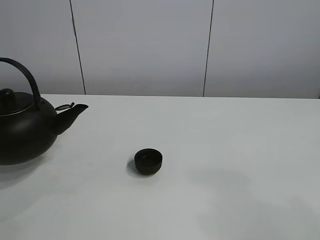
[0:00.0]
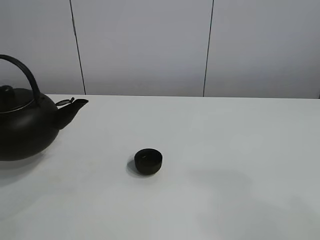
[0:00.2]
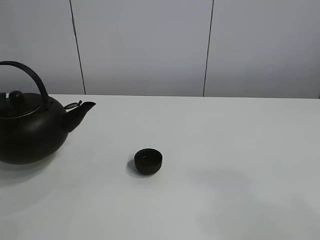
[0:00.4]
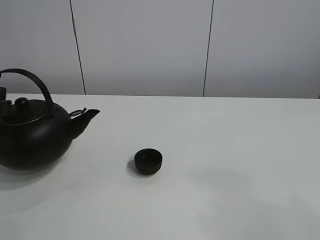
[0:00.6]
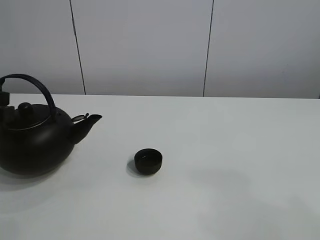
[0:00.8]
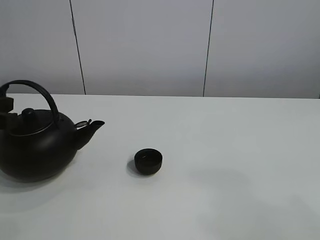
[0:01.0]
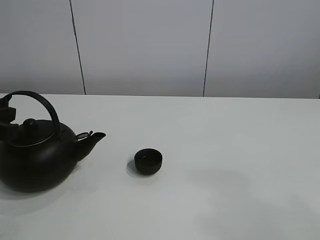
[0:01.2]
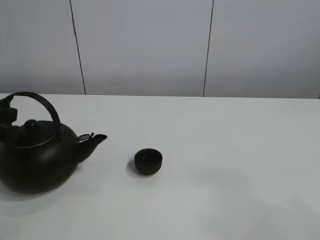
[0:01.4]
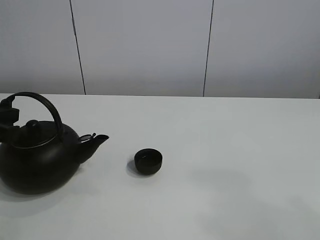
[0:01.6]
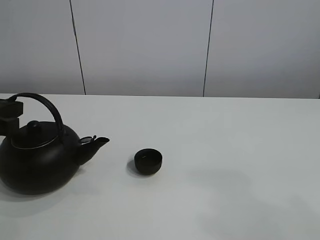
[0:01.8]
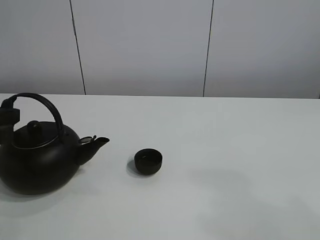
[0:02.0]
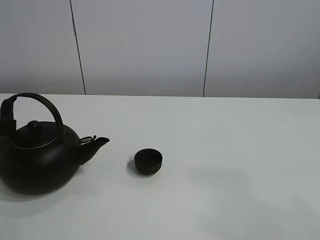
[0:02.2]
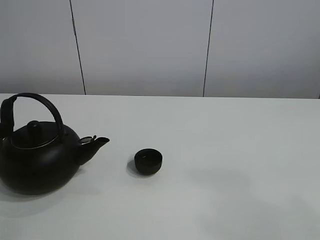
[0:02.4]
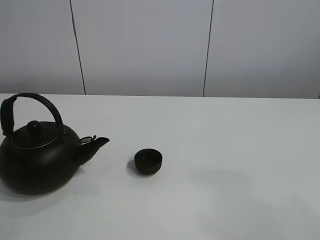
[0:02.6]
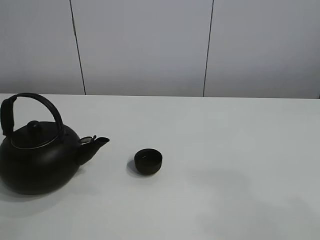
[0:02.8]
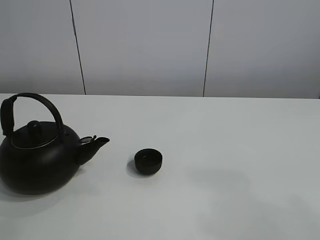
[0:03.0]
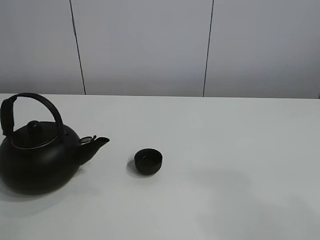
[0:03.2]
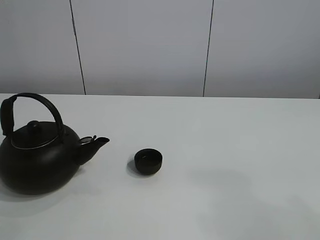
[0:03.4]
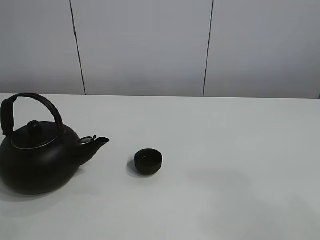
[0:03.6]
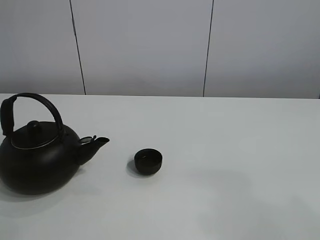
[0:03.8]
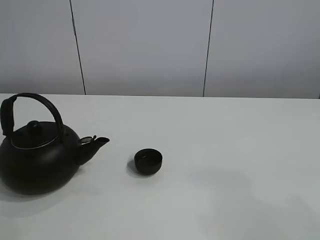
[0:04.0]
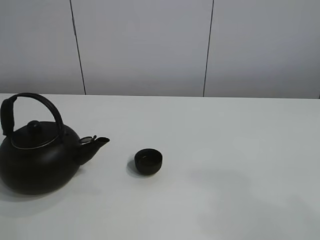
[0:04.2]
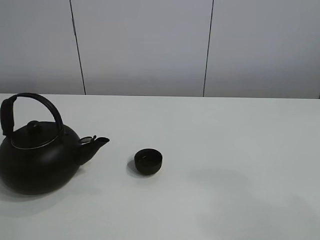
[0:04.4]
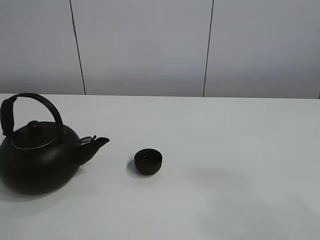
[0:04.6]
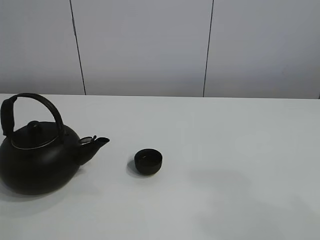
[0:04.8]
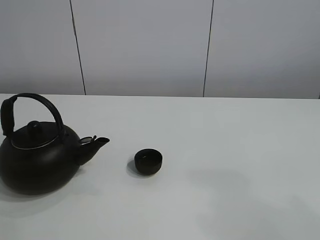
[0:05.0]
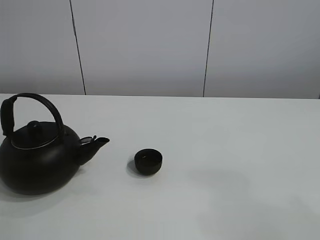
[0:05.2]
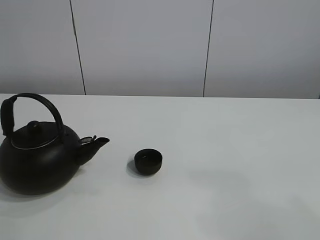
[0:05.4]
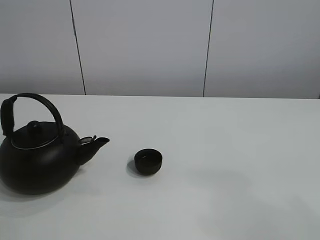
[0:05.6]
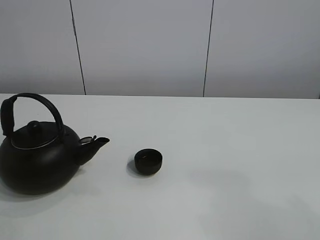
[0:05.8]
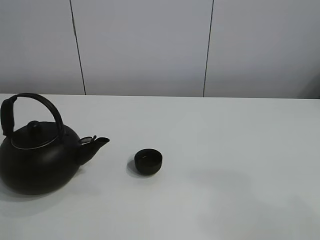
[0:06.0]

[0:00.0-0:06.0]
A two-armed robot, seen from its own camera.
Task of the whole recording: pour tea into the teacup.
0:00.0 to 0:01.6: The left gripper heads downward, covering approximately 5 cm.
0:01.6 to 0:03.0: There are only small adjustments of the grippers.

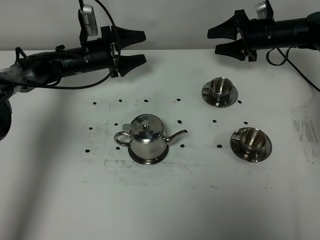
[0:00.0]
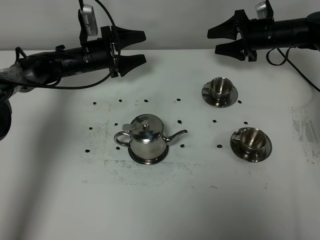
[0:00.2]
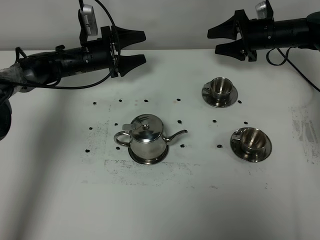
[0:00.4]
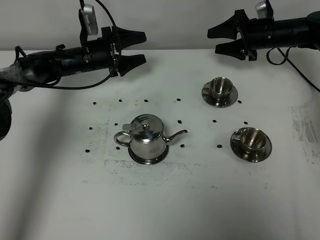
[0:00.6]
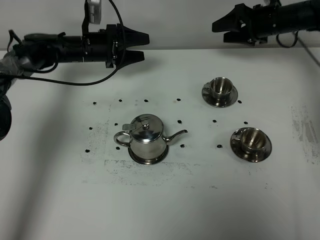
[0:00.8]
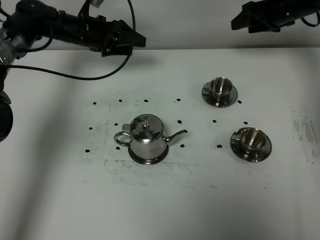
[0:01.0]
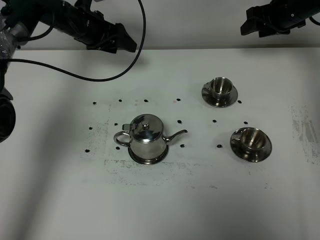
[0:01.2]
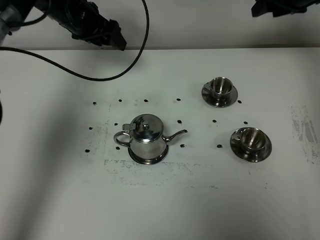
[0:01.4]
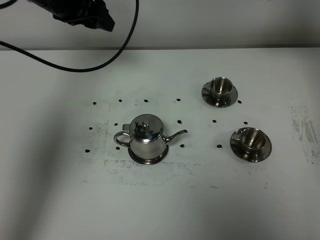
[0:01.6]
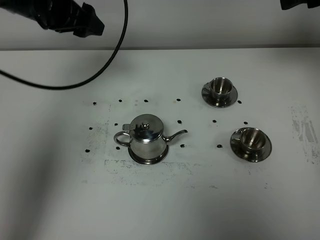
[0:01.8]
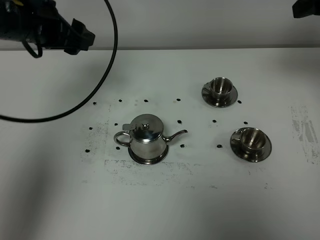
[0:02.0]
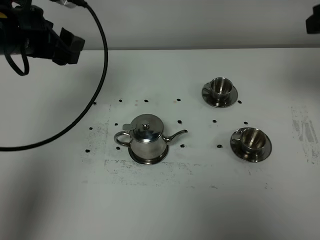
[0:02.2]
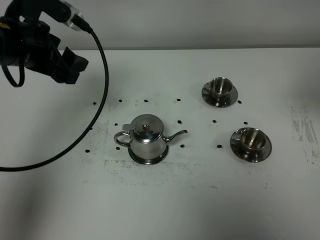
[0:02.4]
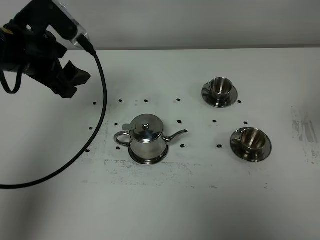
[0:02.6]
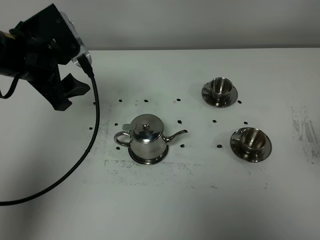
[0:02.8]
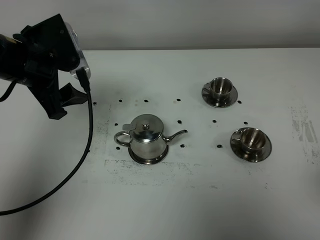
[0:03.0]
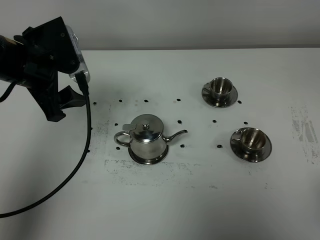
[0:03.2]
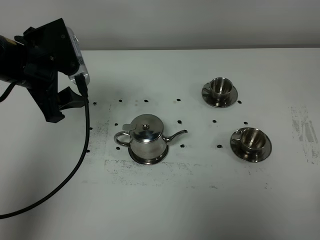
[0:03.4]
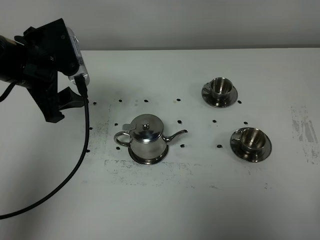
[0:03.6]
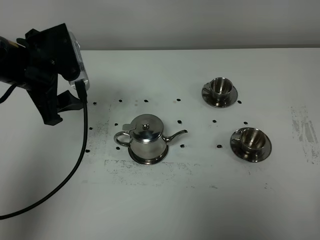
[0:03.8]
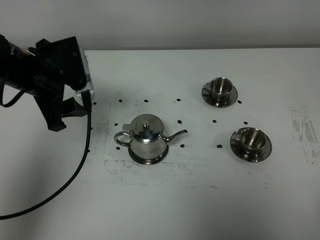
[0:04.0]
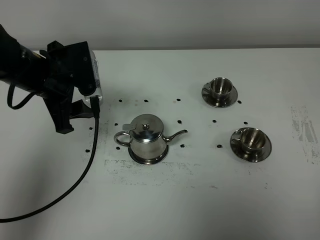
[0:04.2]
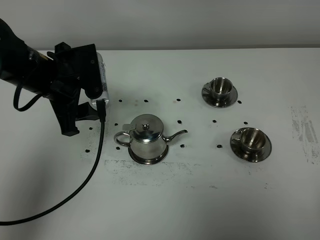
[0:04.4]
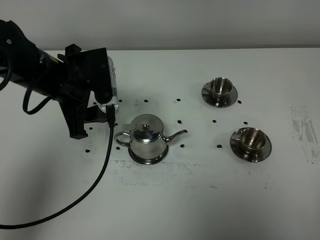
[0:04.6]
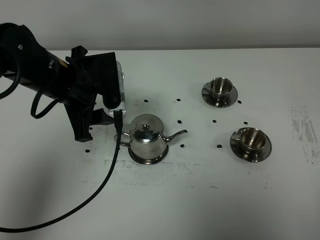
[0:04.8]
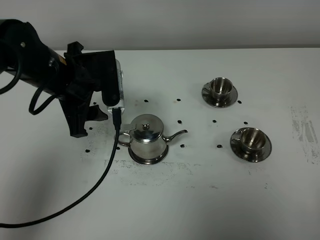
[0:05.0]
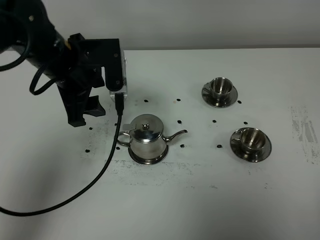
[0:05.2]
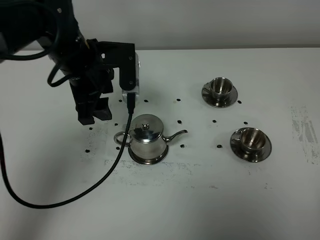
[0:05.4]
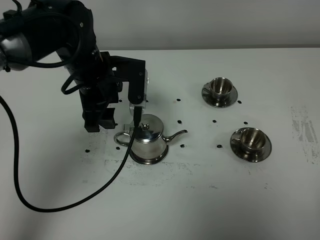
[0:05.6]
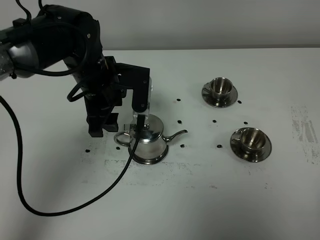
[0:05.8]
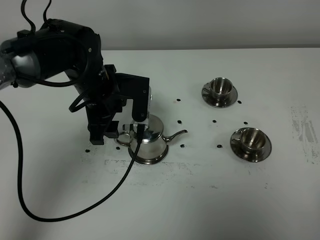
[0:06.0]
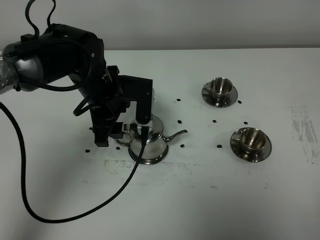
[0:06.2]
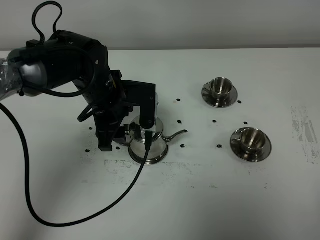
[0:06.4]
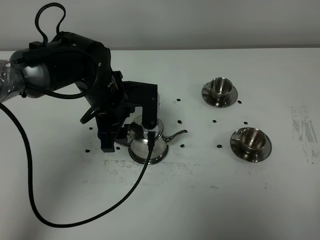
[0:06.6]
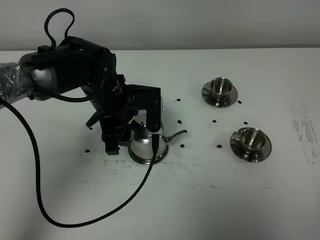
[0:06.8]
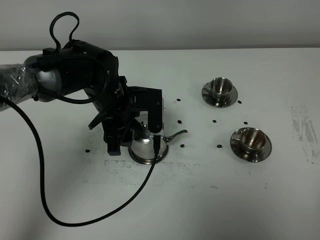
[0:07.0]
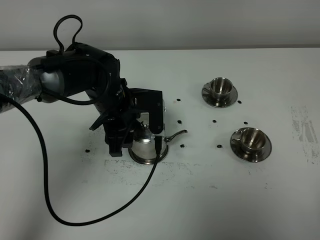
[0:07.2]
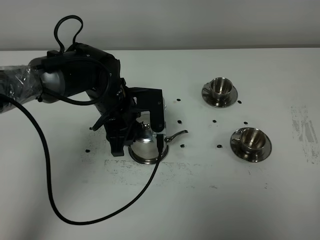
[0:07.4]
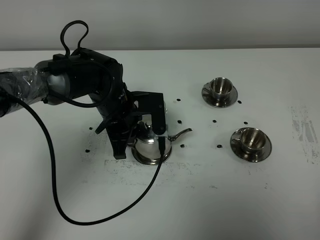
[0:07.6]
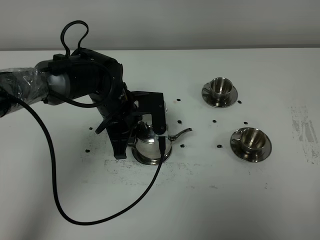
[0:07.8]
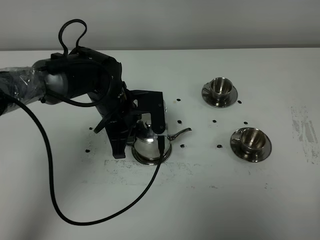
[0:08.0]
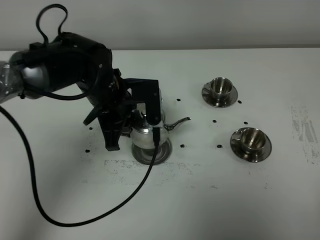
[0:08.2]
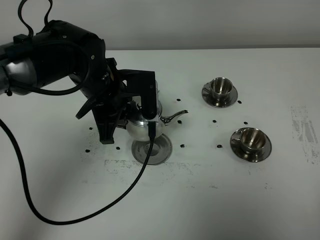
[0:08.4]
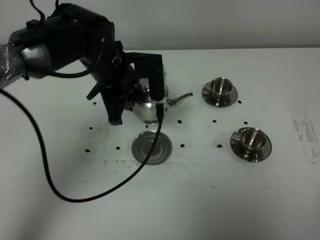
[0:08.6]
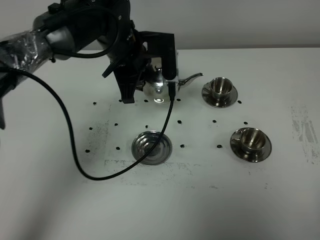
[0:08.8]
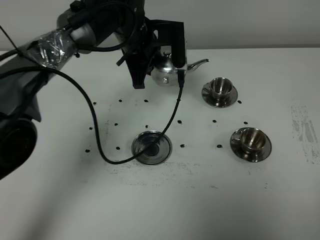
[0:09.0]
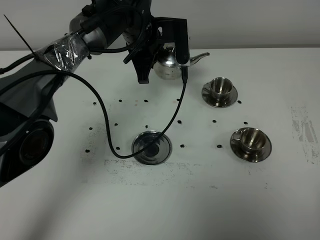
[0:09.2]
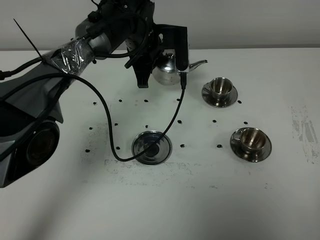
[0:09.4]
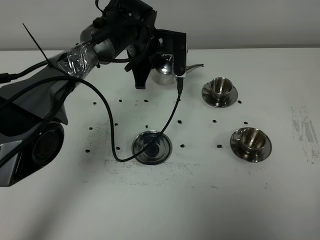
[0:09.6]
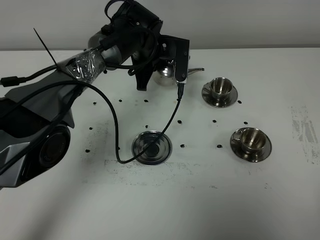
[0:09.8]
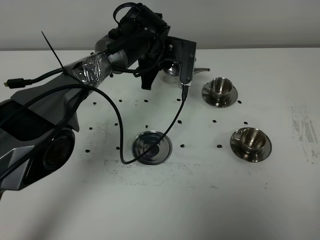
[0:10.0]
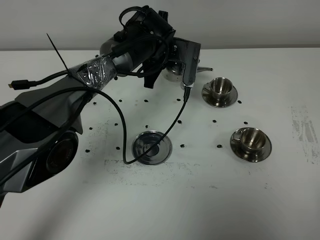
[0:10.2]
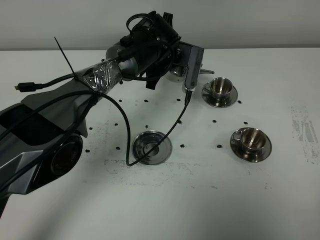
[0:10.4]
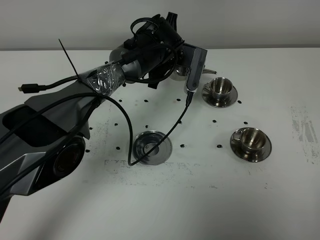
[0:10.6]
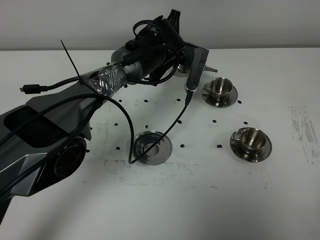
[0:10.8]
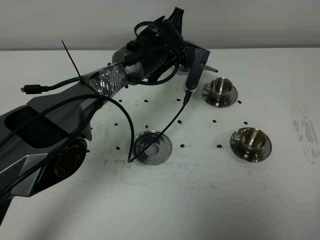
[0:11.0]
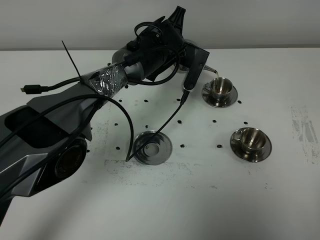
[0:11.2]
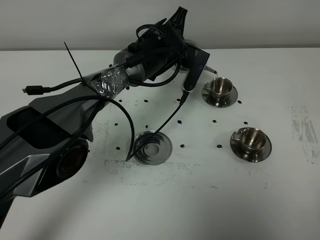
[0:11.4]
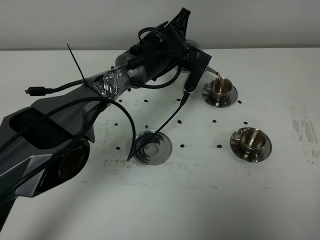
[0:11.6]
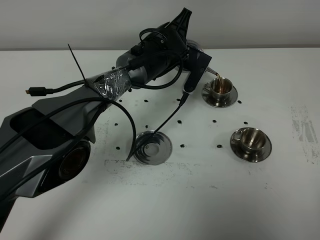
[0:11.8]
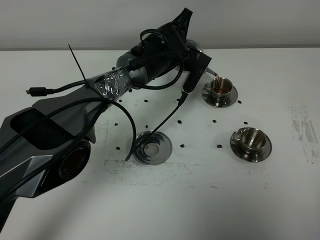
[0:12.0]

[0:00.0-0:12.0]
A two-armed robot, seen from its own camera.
Task of the whole recording: grasp the stainless steel teapot and pour the tea into the two stainless steel teacups one by one, put the stainless steel teapot back in its original place.
Step, 0:00.0 to 0:08.0: Pick up the teapot with the left gripper.
0:00.0 to 0:01.6: The right gripper shifts some 25 cm upward and backward, and closes up, while the left gripper is displaced upward by roughly 20 cm.
0:01.6 to 0:03.0: The left gripper travels backward by some 15 cm, while the right gripper goes approximately 40 cm backward.
0:04.4 to 0:06.0: The left gripper is displaced to the right and downward by about 10 cm.
0:06.0 to 0:07.6: The left gripper shifts by about 5 cm, and closes up.
0:07.6 to 0:09.0: The left gripper goes roughly 15 cm forward and upward.
0:09.0 to 0:10.4: The left gripper shifts roughly 5 cm downward.

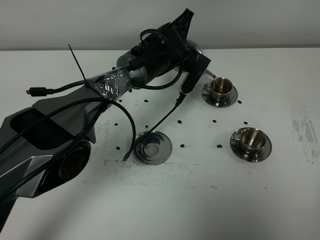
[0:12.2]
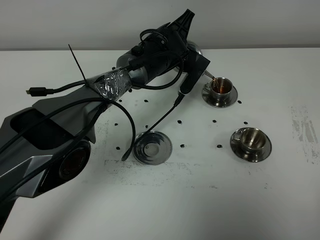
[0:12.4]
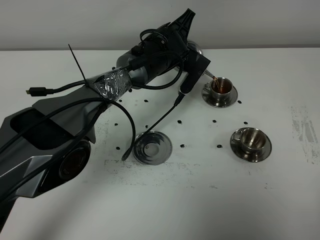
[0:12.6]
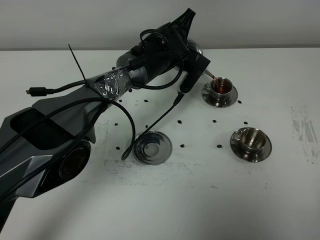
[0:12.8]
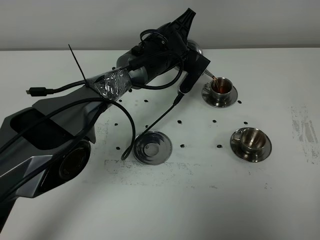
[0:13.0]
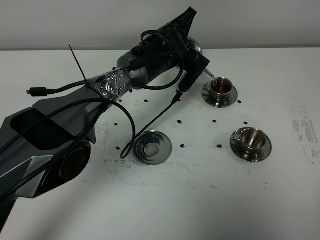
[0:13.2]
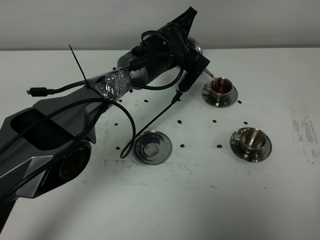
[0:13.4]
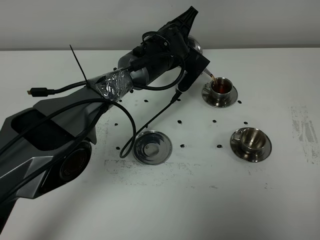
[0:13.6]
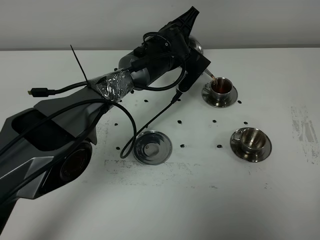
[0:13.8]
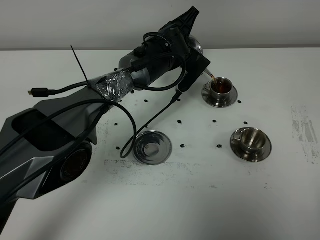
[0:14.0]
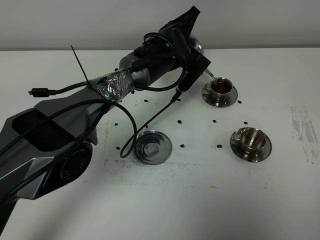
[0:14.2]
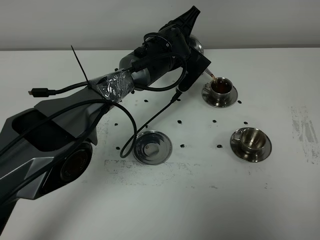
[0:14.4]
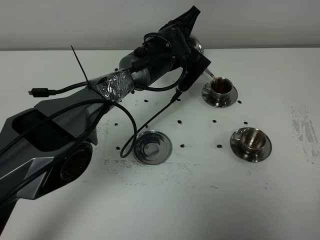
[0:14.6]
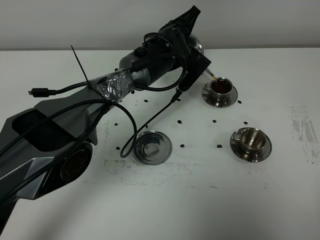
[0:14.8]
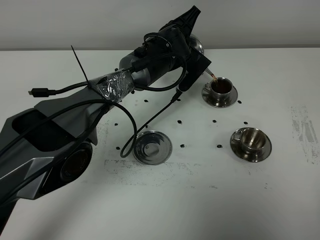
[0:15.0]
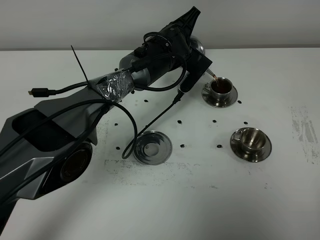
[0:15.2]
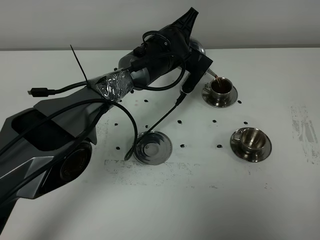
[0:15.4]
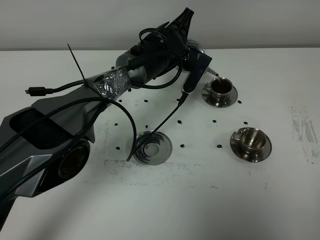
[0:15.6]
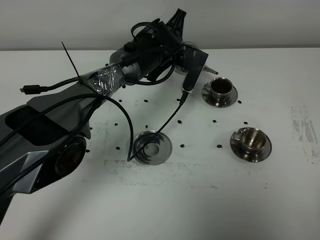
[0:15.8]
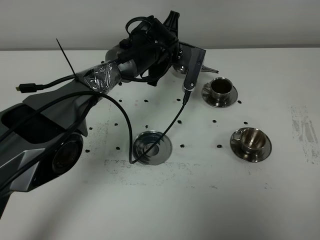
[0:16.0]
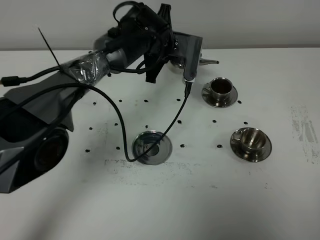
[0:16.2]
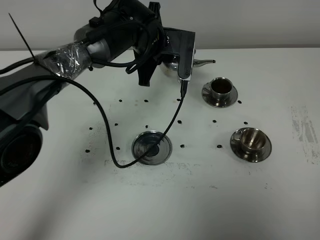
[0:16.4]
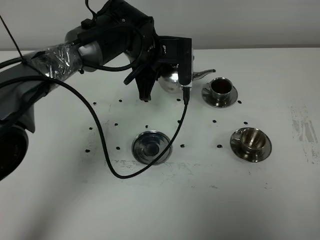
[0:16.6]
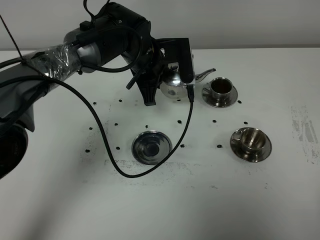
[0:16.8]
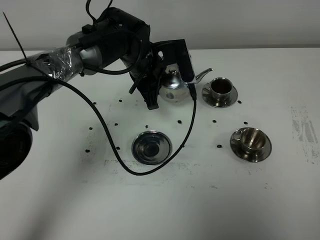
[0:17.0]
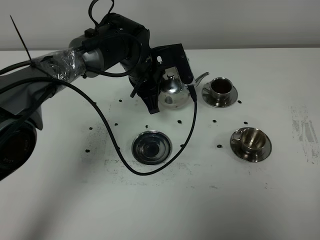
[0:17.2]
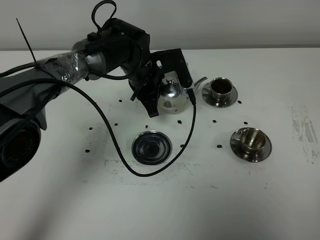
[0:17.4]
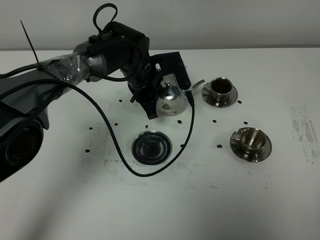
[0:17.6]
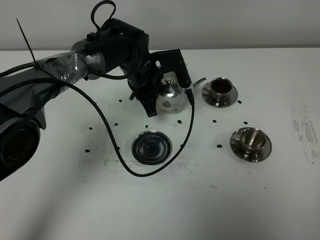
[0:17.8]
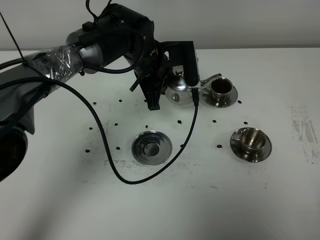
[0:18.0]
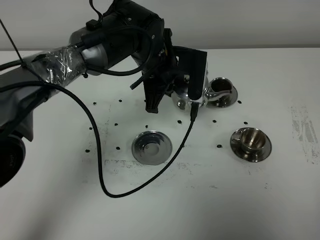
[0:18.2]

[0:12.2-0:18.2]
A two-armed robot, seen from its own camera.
Task of the whole recording: grasp the stainless steel teapot and pour the tea into the two stainless steel teacups one by one, put the stainless steel teapot back in its original place.
0:12.2 to 0:13.8: The grippers stay close to where they were, moving slightly.
0:13.8 to 0:15.2: Both grippers stay put.
0:15.2 to 0:16.6: The left gripper heads to the left, covering roughly 5 cm.
